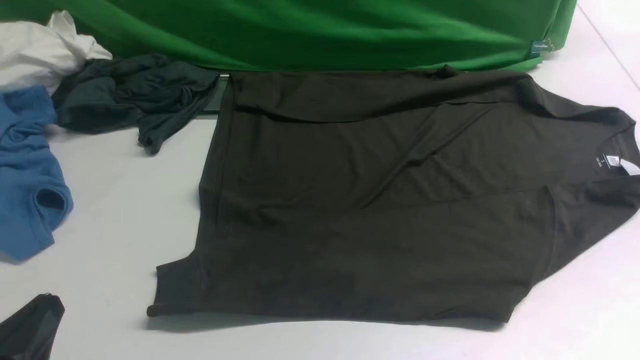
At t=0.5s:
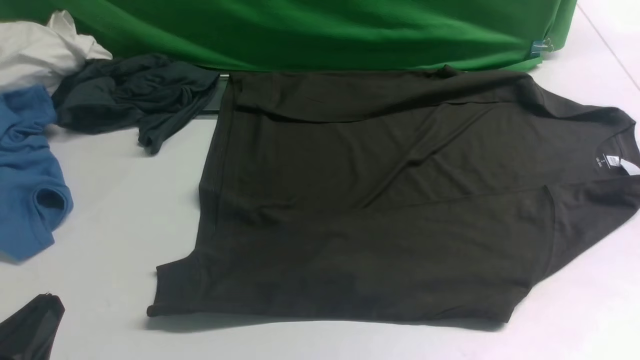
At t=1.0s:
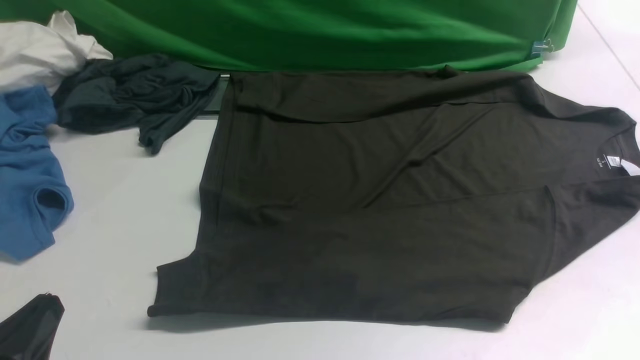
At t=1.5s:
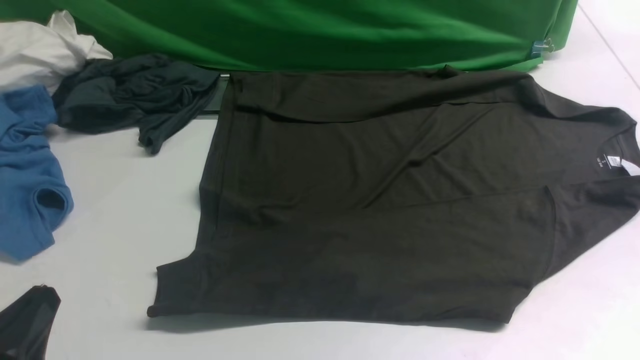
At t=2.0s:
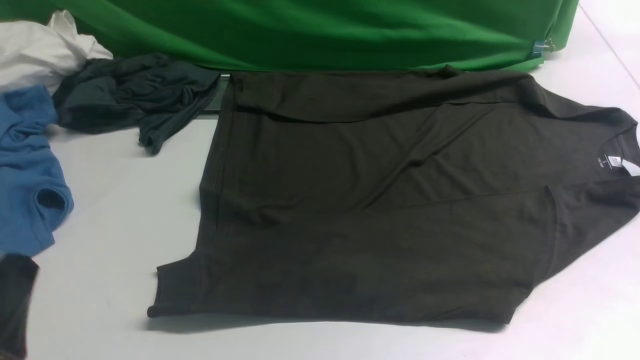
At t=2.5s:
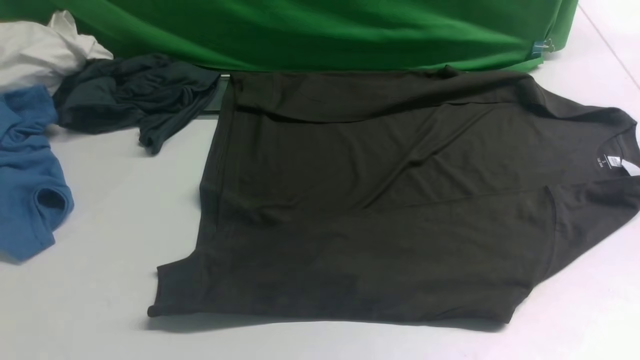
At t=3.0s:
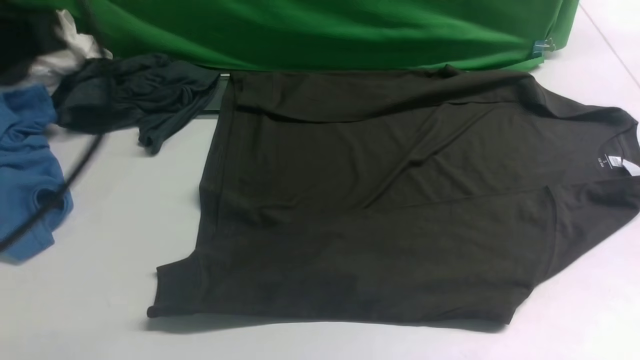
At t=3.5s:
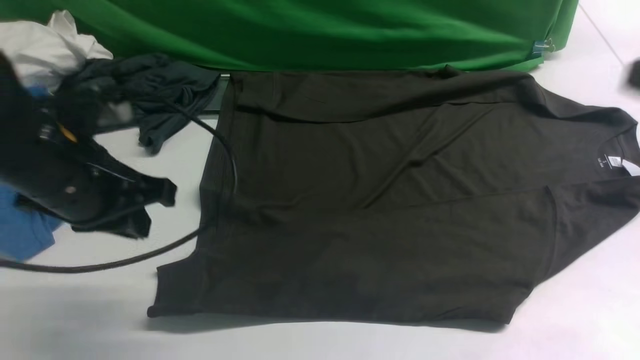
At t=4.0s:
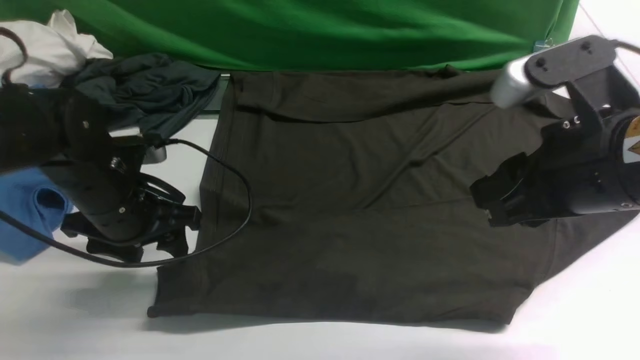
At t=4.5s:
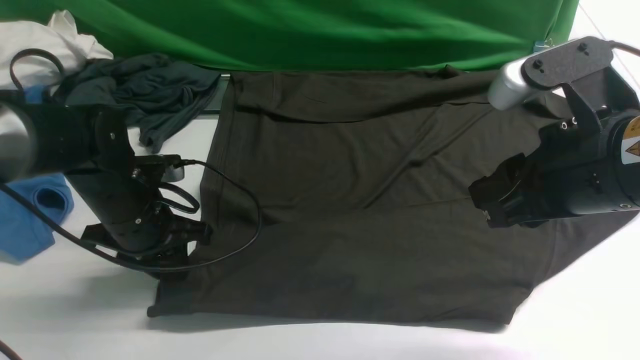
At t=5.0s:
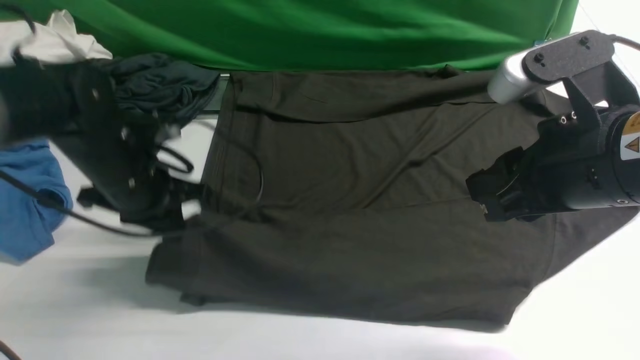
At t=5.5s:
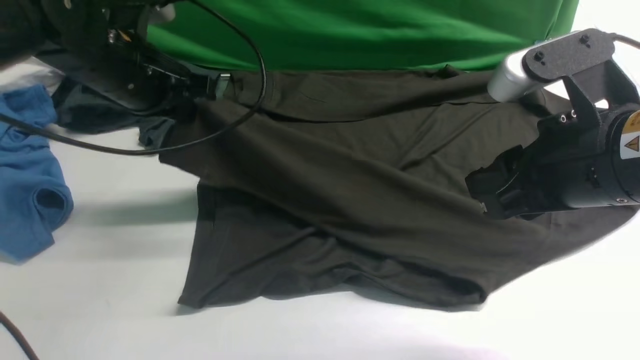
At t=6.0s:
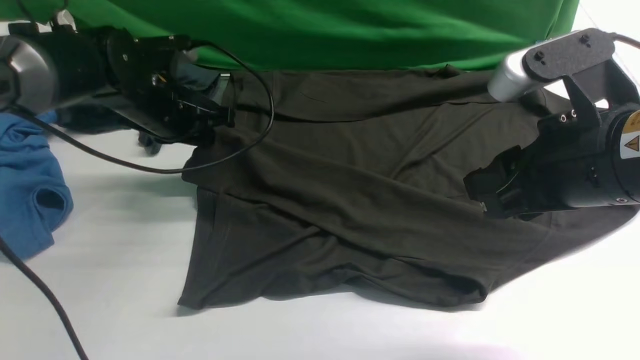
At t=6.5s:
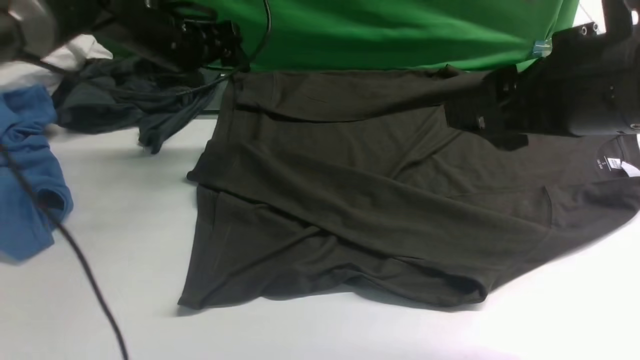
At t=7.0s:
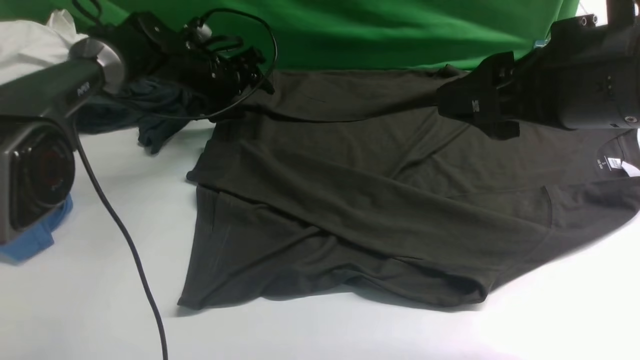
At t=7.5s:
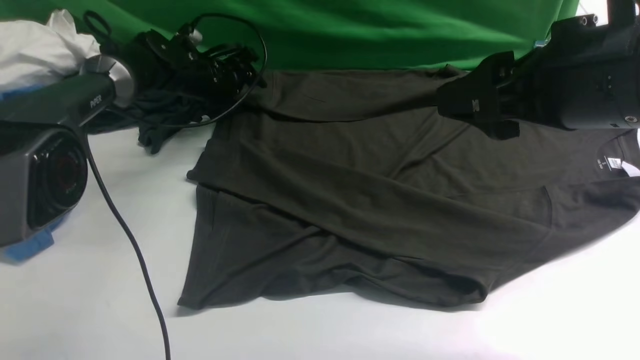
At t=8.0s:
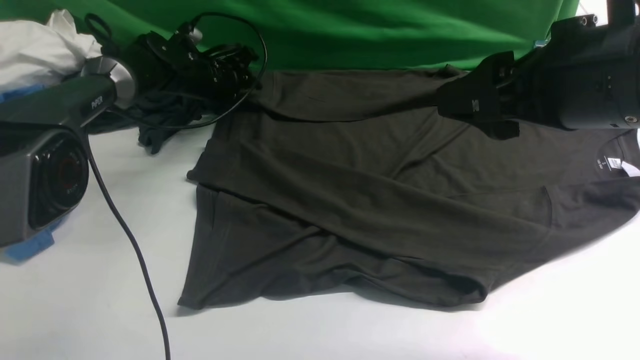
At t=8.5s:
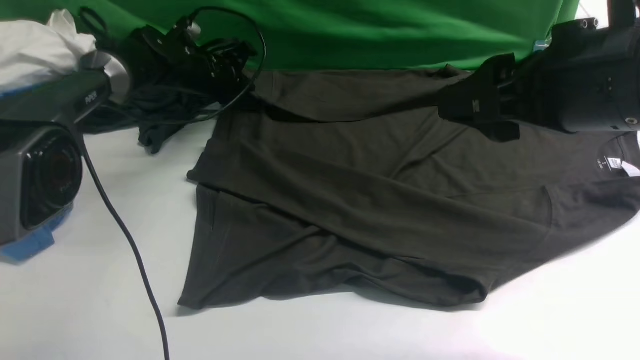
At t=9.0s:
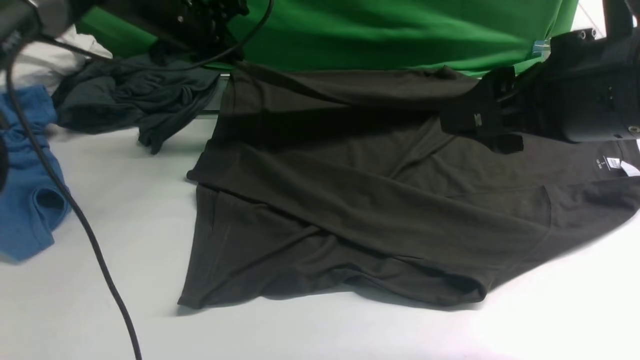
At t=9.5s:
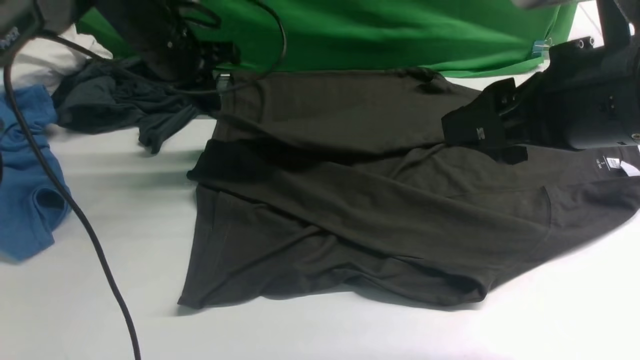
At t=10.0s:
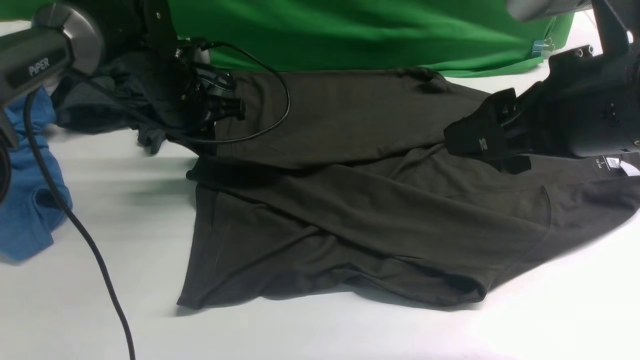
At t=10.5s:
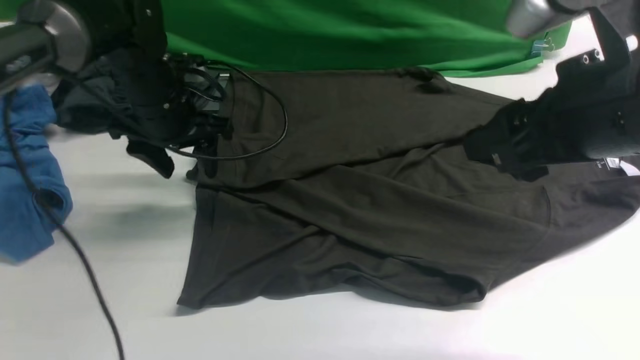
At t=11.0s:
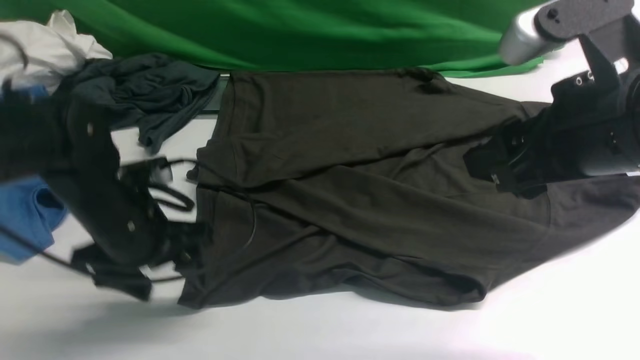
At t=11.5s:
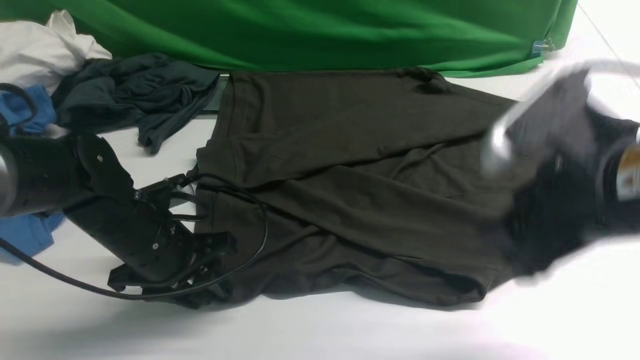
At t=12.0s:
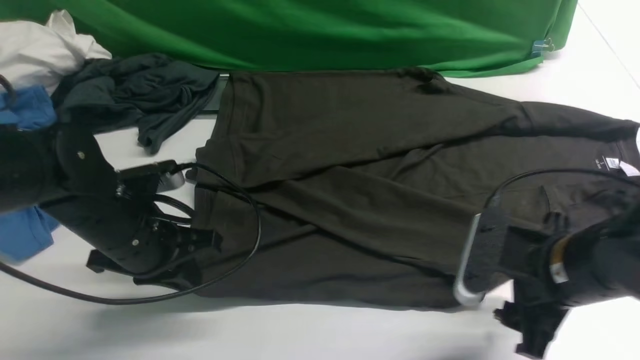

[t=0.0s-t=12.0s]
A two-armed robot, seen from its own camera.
Step, t=0.0s to t=5.0s: use the left arm to clamp the cuff closest to it.
Step, t=5.5s to t=6.0s: use the left arm to drag and place the cuff at the centered position on the left edge of the fabric.
Step, t=6.5s to t=8.5s: use the left arm to clamp the cuff farthest from it.
Step, t=9.0s to t=10.0s: use the left arm to drag and drop the cuff onto the cuff closest to the left arm.
t=0.0s to t=2.0s: The right gripper goes approximately 5 cm upward.
t=2.0s to t=4.0s: The left gripper shifts about 25 cm forward, and opens up. The right gripper heads forward, to the left and upward, covering approximately 20 cm.
t=4.0s to t=6.0s: The left gripper travels forward by roughly 10 cm.
t=6.0s to t=8.0s: The left gripper shifts approximately 15 cm forward and downward, and opens, then closes once more.
t=8.0s to t=10.0s: The left gripper moves backward and upward, roughly 15 cm.
t=10.0s to t=12.0s: The right gripper moves downward, about 20 cm, while the left gripper shifts roughly 15 cm backward, and opens, then closes again.

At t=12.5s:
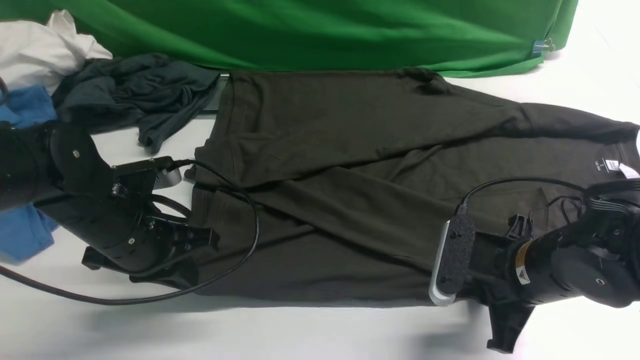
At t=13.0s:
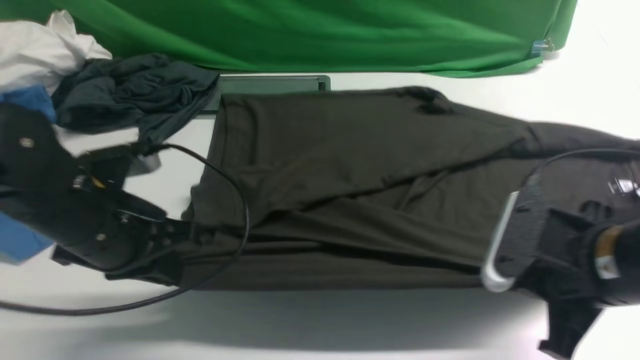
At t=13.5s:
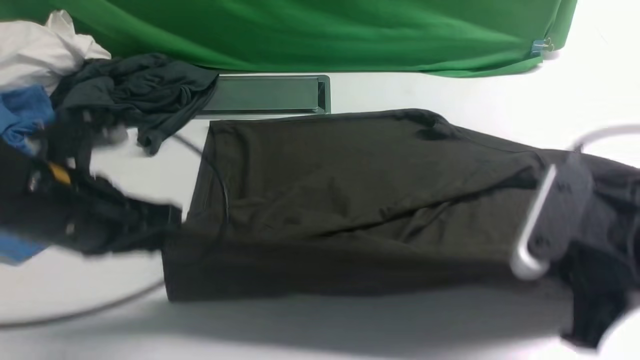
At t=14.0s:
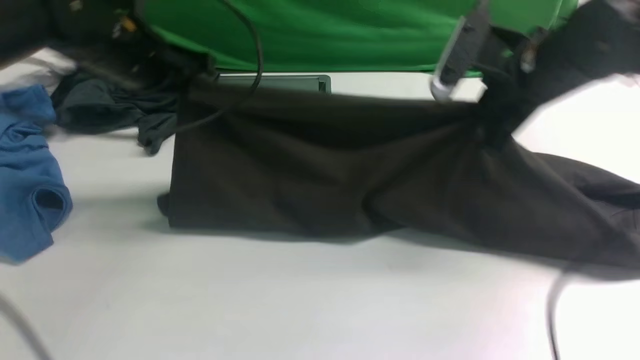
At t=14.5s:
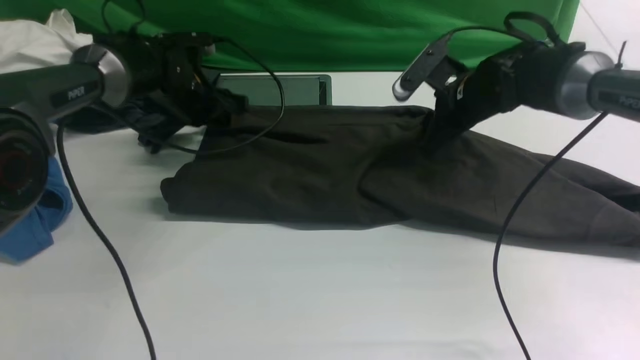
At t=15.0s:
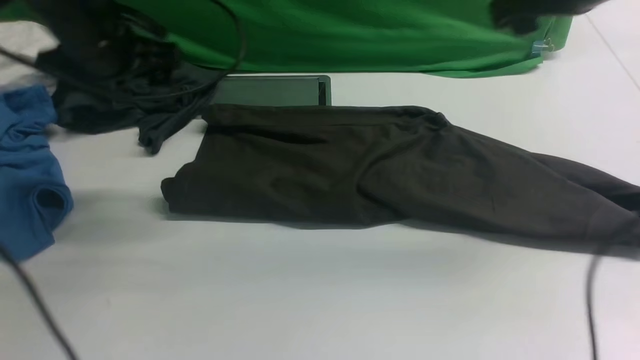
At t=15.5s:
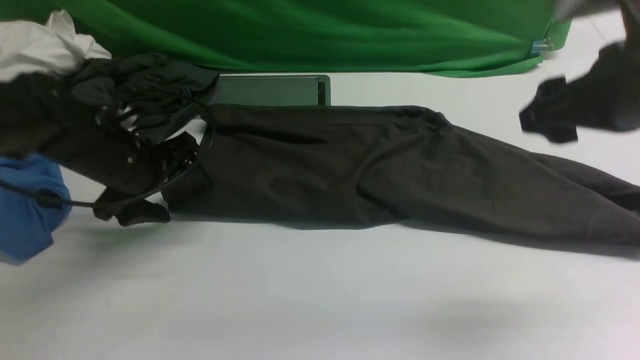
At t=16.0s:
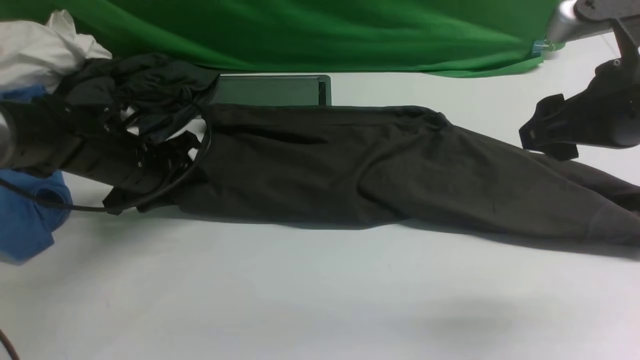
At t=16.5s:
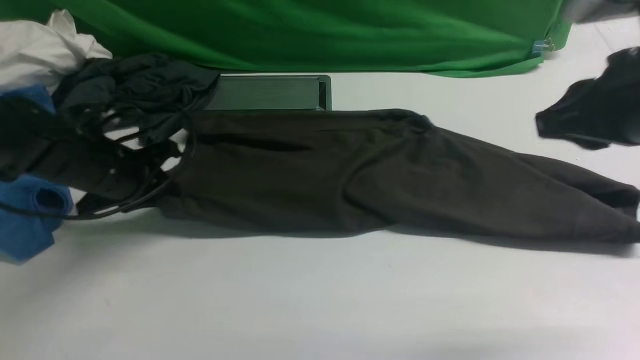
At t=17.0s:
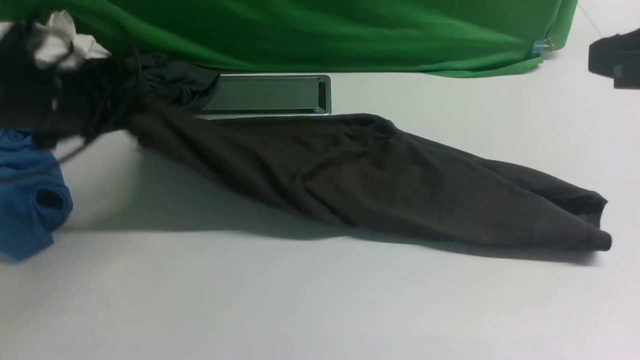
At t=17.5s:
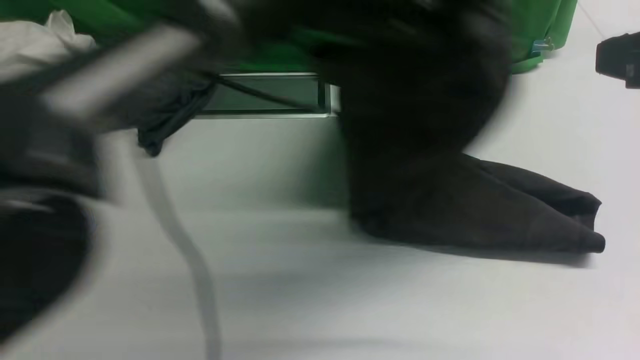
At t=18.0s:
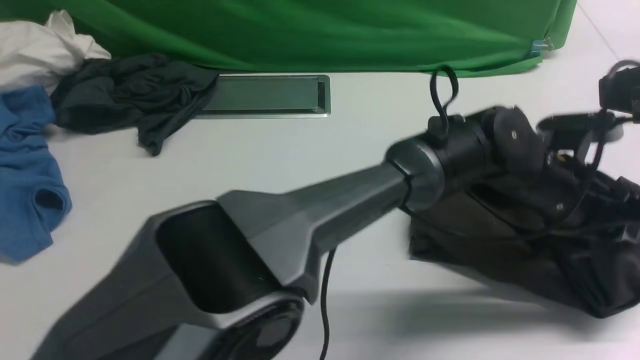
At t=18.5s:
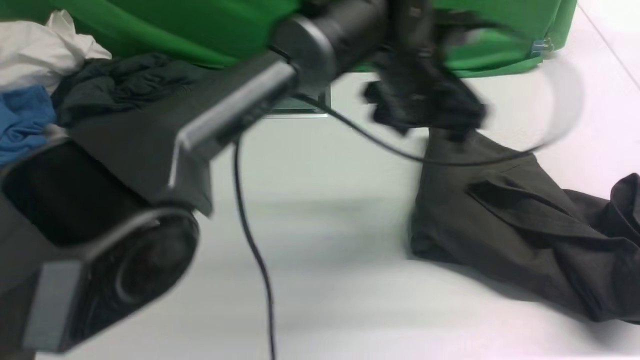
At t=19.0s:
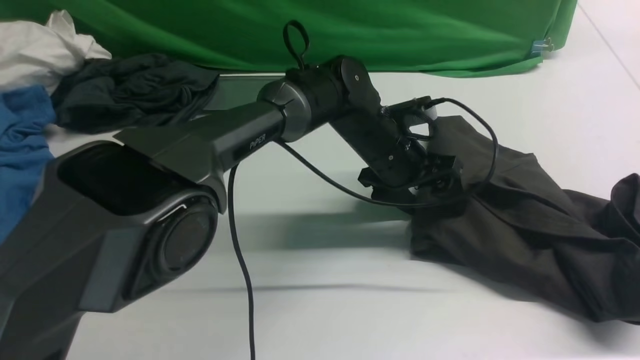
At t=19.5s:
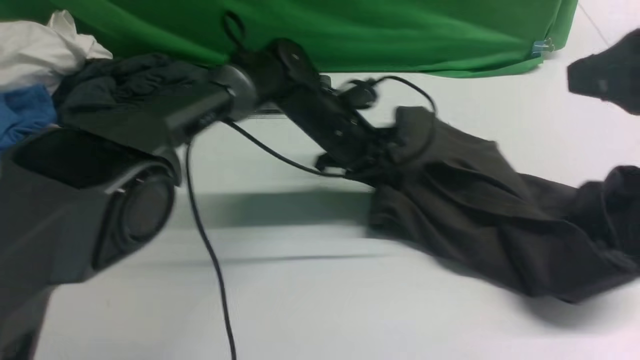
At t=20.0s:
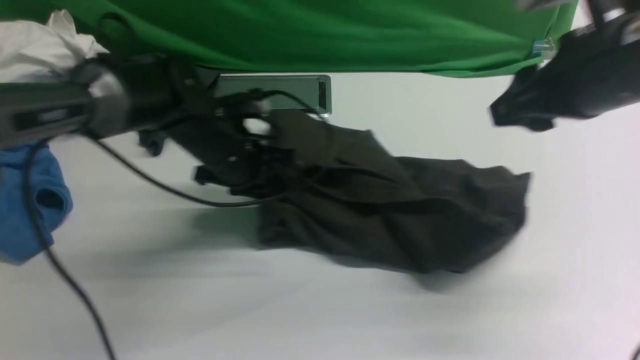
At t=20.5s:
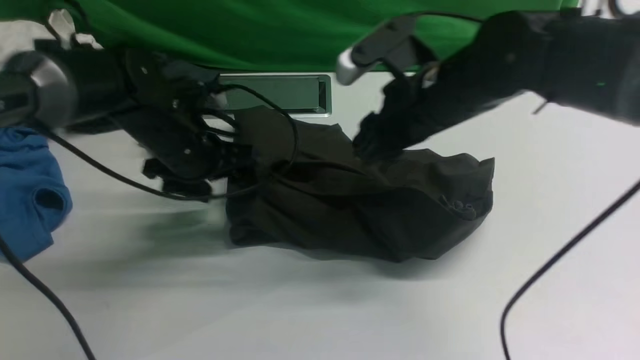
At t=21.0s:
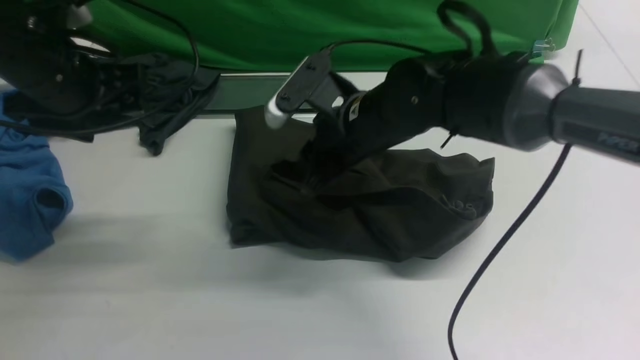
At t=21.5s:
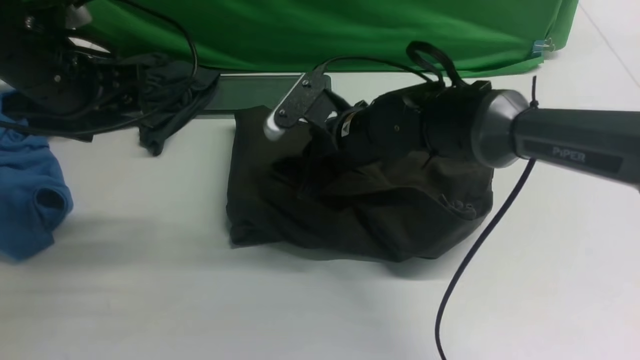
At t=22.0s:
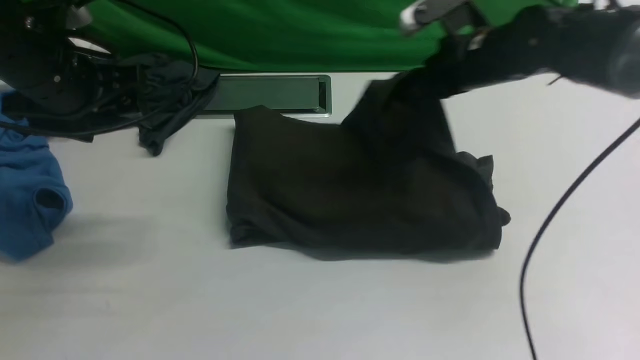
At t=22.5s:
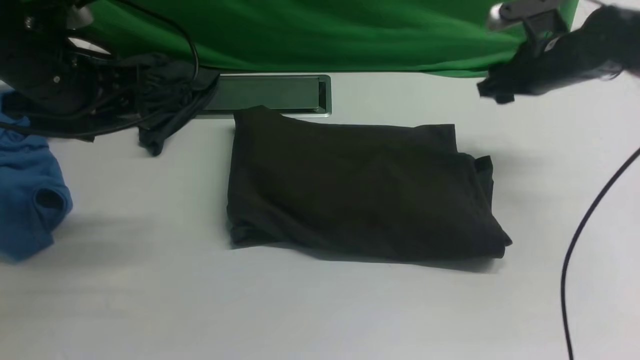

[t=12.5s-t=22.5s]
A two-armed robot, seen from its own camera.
Step, t=13.0s to t=14.5s: use both arms to drag the lower edge of the fabric forward and fold it over the upper edge.
Step, t=15.0s to t=16.5s: Hold the left edge of the fabric with your left arm.
Step, t=17.0s to t=18.0s: Drag the left edge of the fabric to the left with your left arm and fold it to the right edge.
t=12.5s to t=14.5s: Both grippers travel together forward, some 20 cm. The left gripper opens. The right gripper opens its fingers.
t=14.5s to t=16.5s: The right gripper is displaced backward and upward by approximately 25 cm, and closes up, while the left gripper goes about 15 cm backward and to the left, and closes.
t=16.5s to t=18.5s: The left gripper moves to the right, some 35 cm, and opens. The right gripper goes some 10 cm backward and upward.
t=18.5s to t=20.5s: The right gripper moves forward, to the left and downward, some 30 cm, and opens its fingers; the left gripper moves to the left, approximately 25 cm, and closes, then reopens.
t=20.5s to t=22.5s: The left gripper travels upward and to the left by about 10 cm; the right gripper moves to the right and forward, roughly 20 cm, and closes, then opens again.
